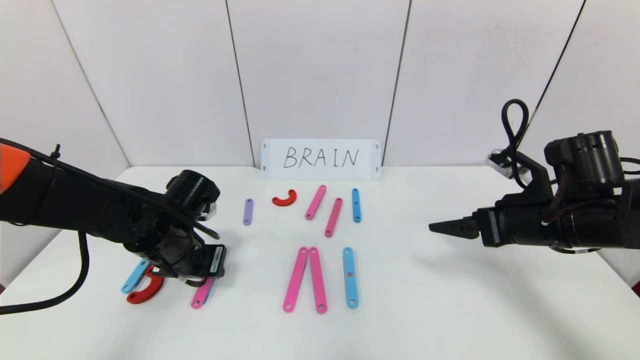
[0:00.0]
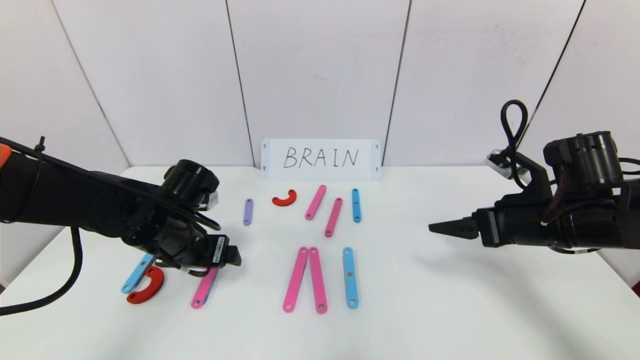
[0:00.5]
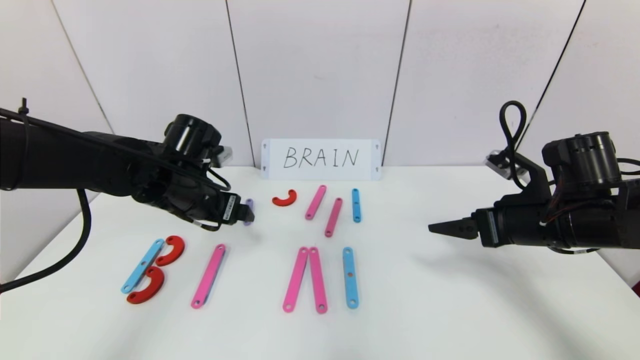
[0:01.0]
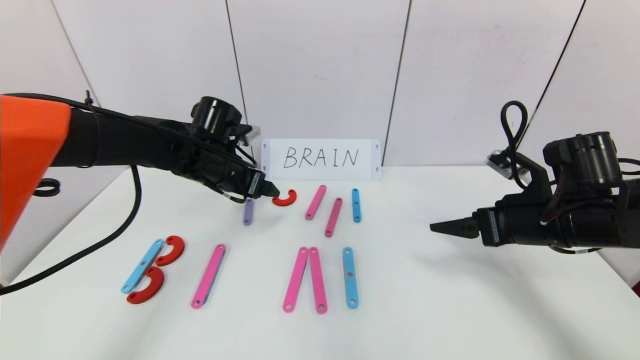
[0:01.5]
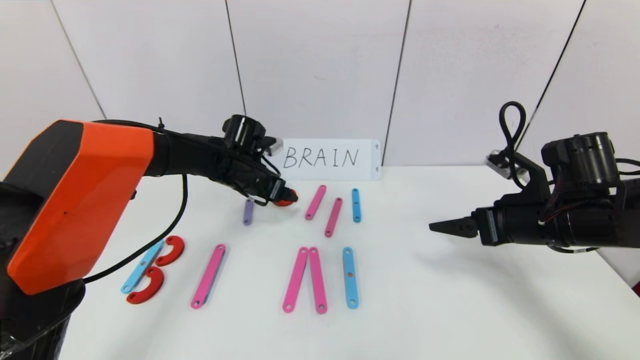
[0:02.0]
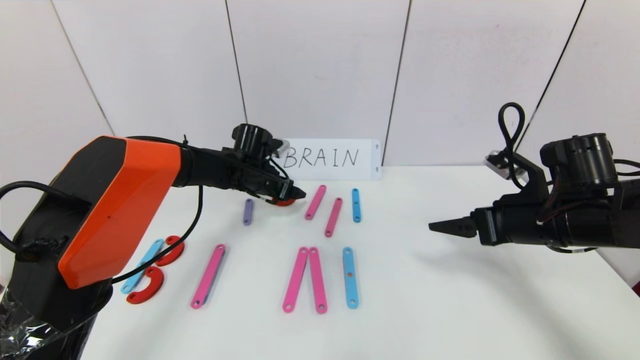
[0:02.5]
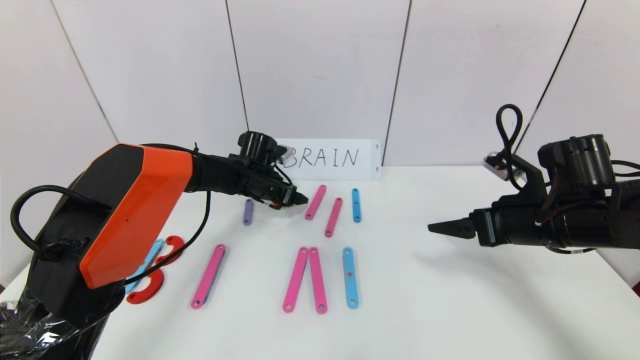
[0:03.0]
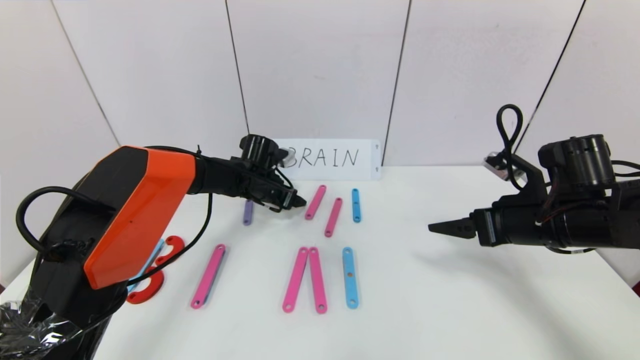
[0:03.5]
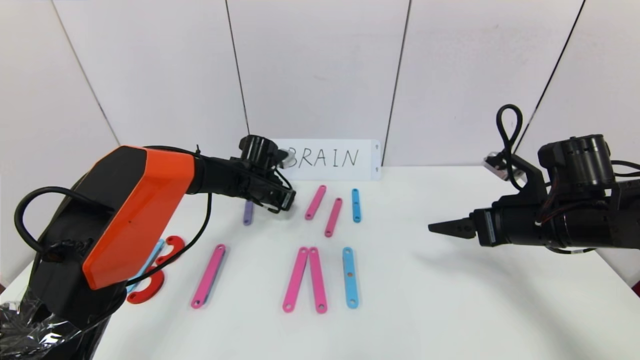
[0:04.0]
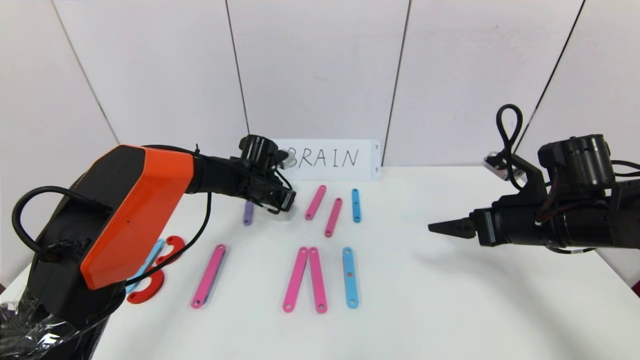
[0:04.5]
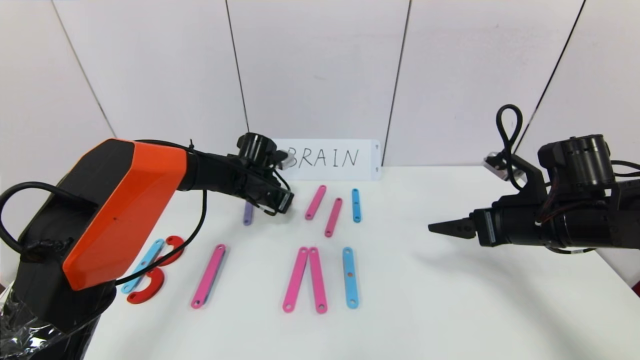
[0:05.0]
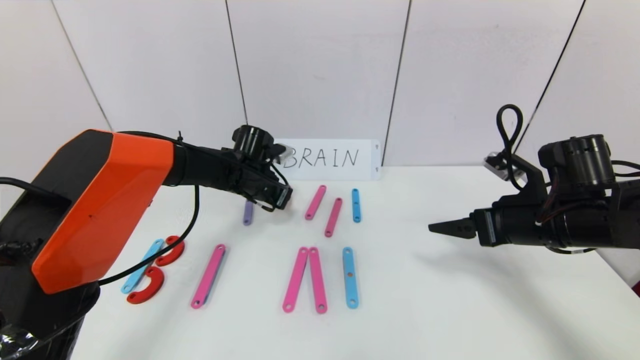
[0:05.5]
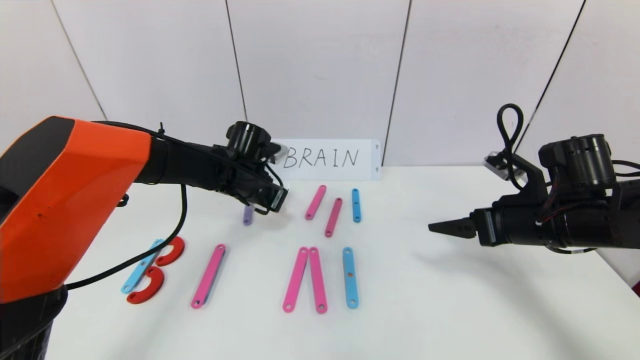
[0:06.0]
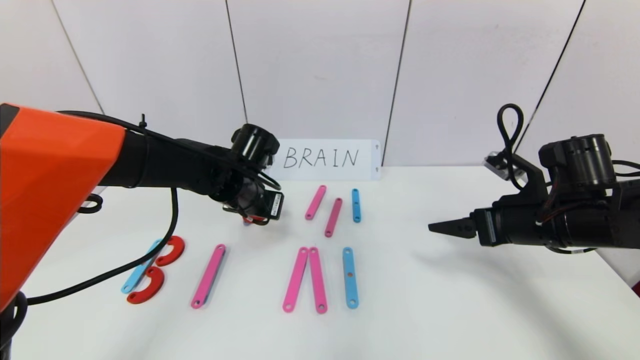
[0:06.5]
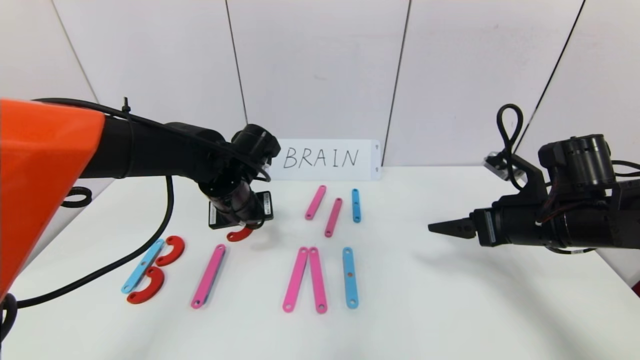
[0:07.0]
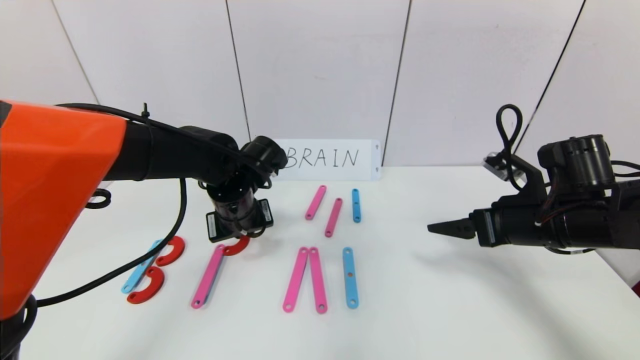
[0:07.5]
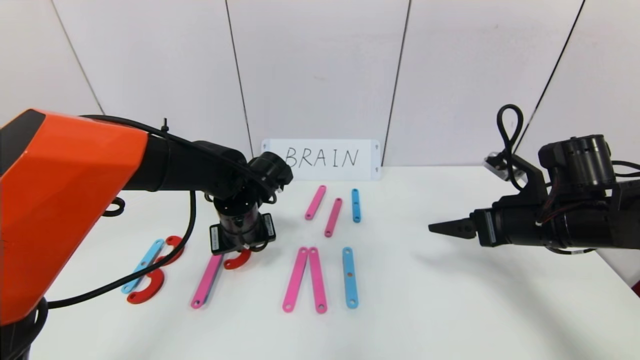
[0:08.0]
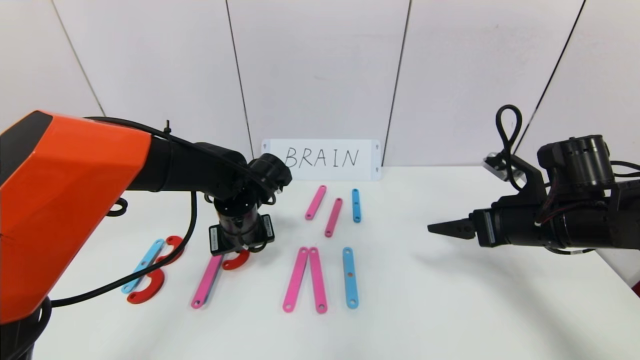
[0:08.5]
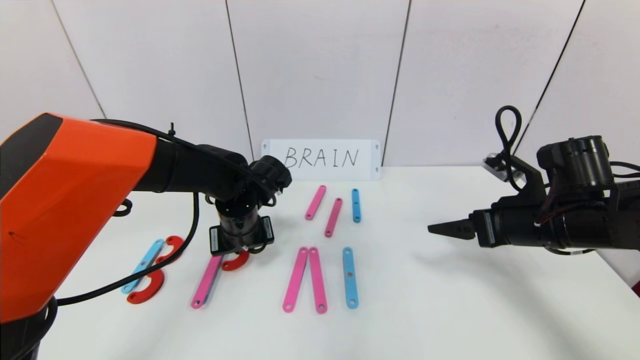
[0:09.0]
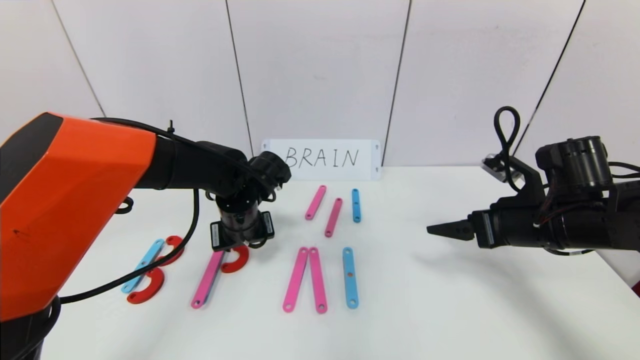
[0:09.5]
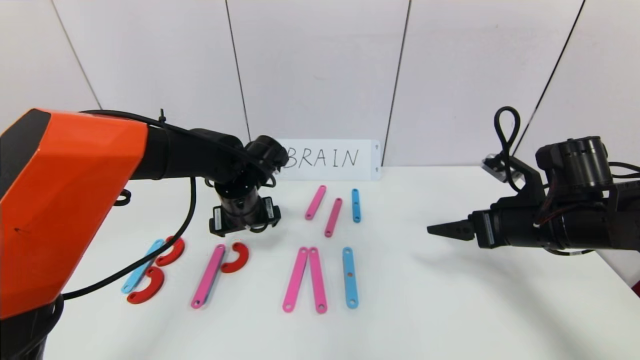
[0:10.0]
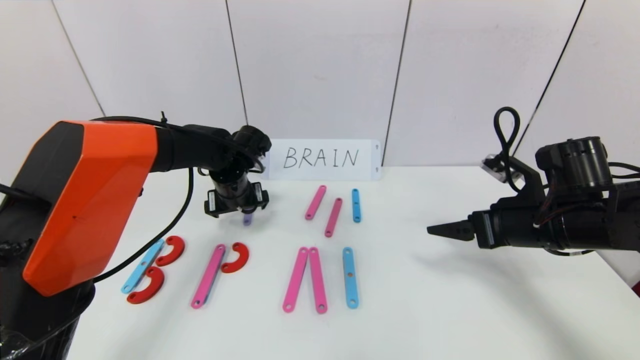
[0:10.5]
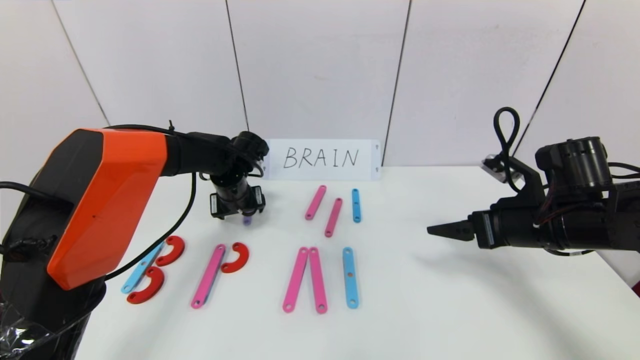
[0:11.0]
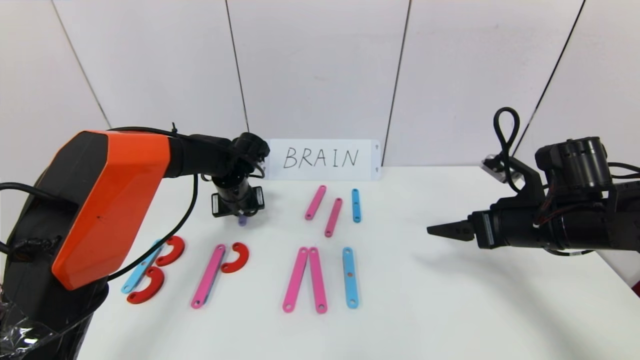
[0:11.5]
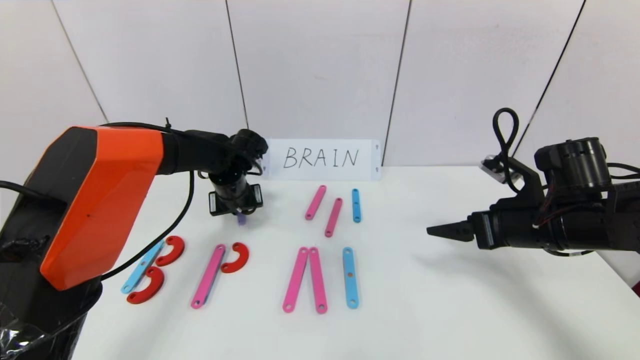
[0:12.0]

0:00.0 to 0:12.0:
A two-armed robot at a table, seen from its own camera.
Task of the whole recording: rearrange the word baai as brain.
0:00.0 to 0:02.0: The left gripper shifts approximately 15 cm forward and to the right, and opens up.
0:02.0 to 0:04.0: The left gripper shifts approximately 5 cm downward, and closes up.
0:04.0 to 0:06.0: The left gripper shifts about 10 cm backward and upward.
0:06.0 to 0:08.0: The left gripper is displaced backward by approximately 5 cm.
0:08.0 to 0:10.0: The left gripper opens.
0:10.0 to 0:12.0: The left gripper travels forward by approximately 5 cm, and closes up.

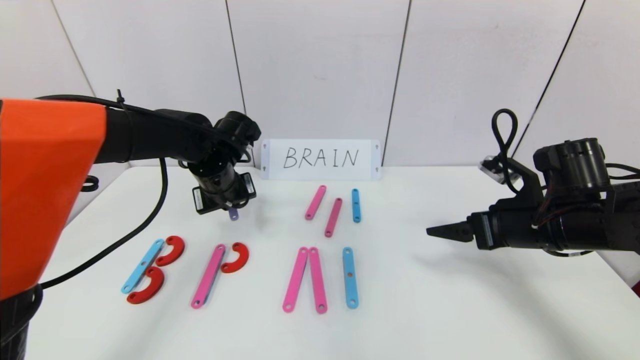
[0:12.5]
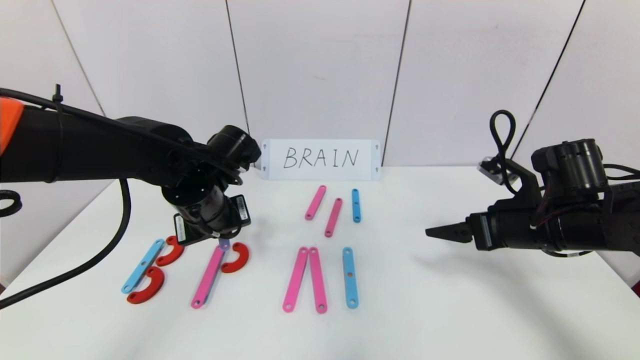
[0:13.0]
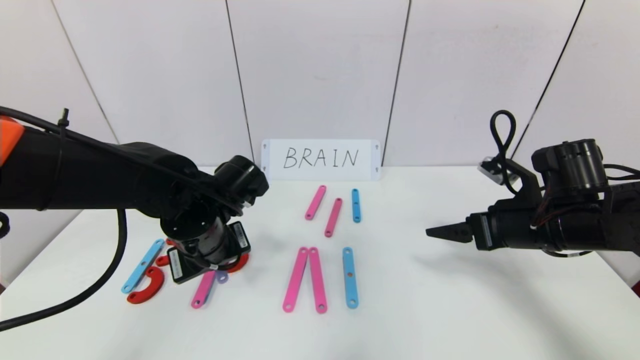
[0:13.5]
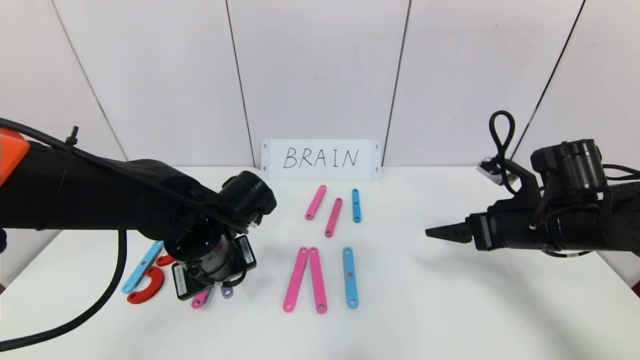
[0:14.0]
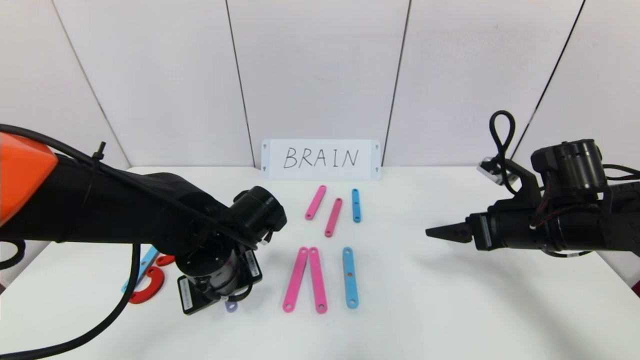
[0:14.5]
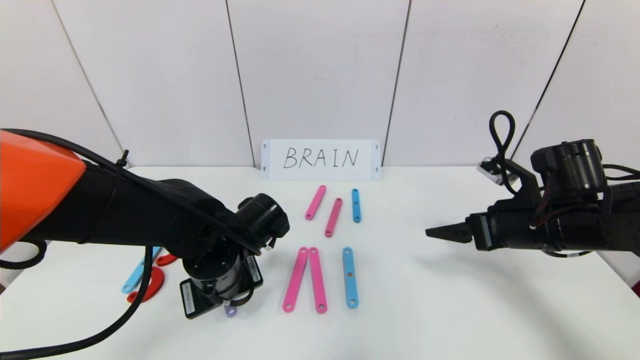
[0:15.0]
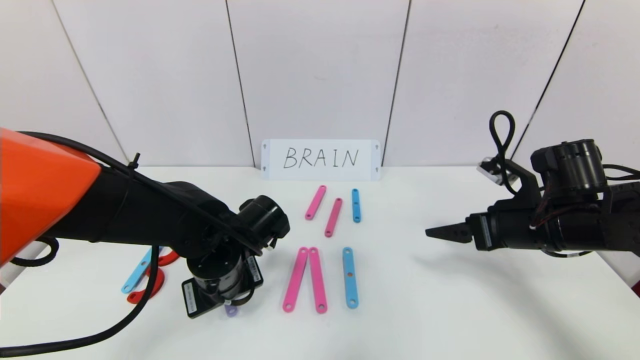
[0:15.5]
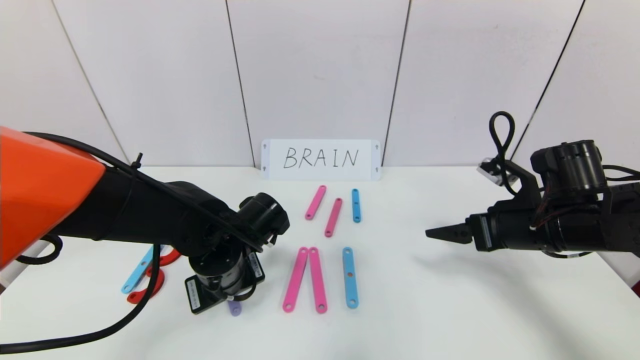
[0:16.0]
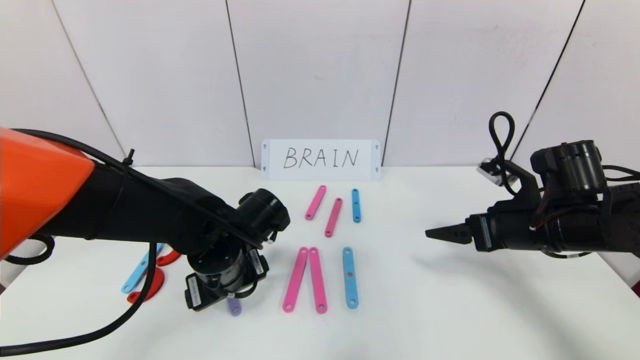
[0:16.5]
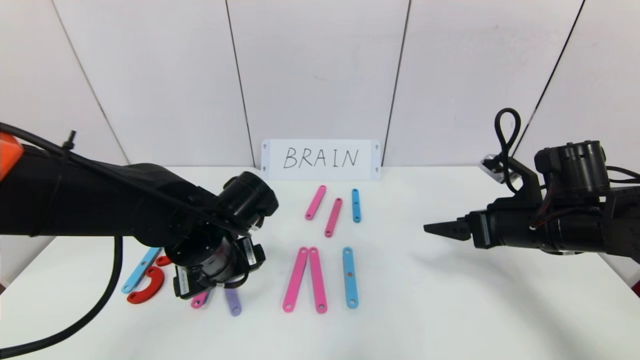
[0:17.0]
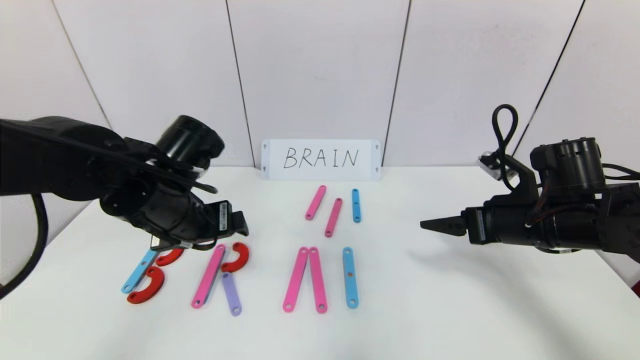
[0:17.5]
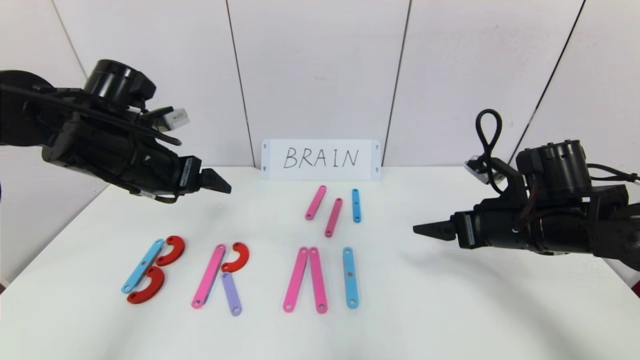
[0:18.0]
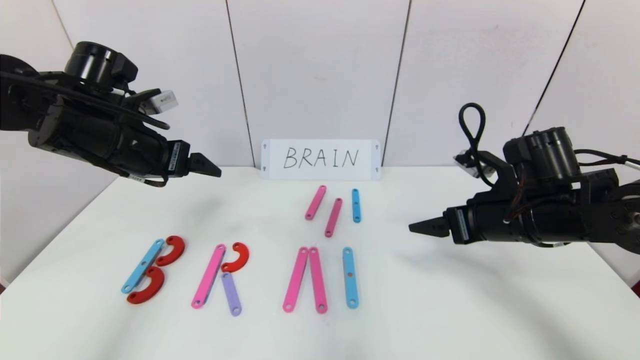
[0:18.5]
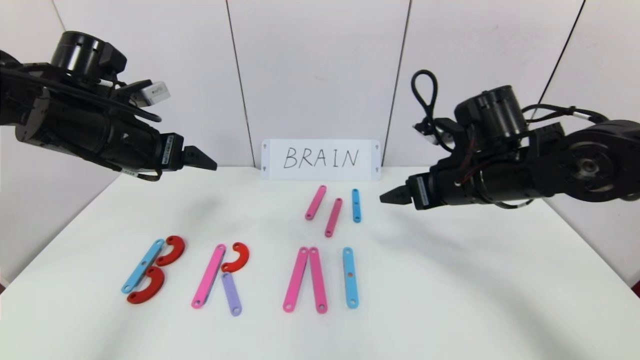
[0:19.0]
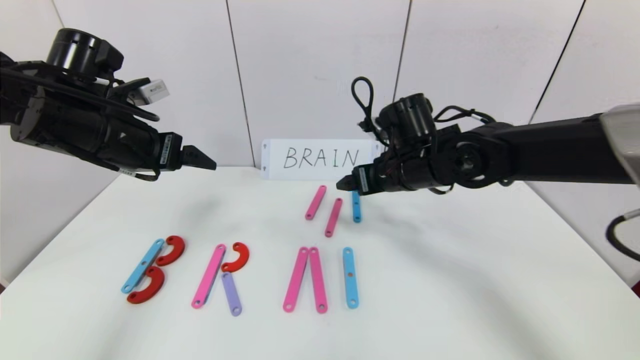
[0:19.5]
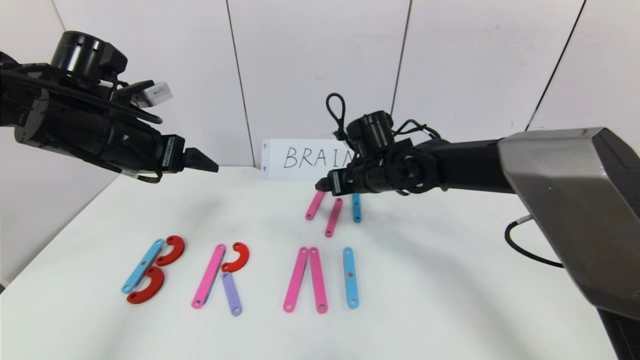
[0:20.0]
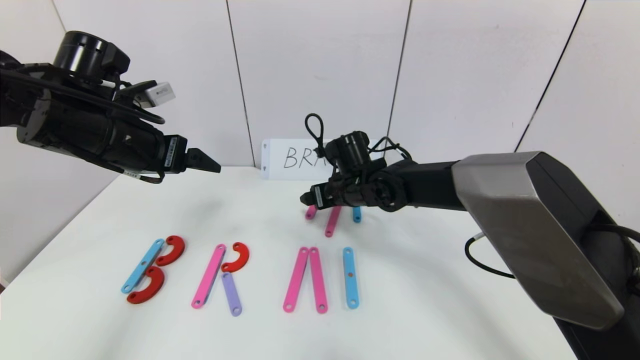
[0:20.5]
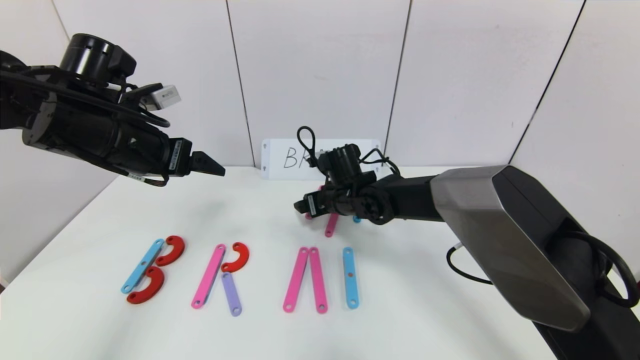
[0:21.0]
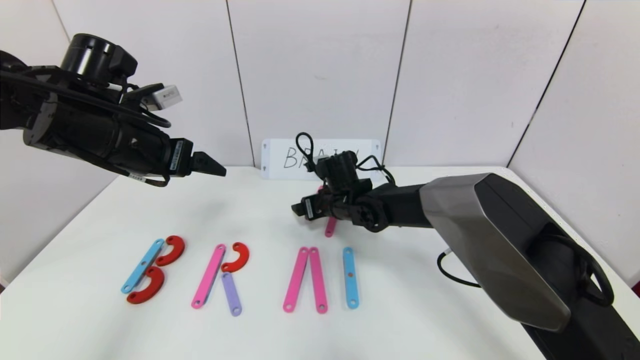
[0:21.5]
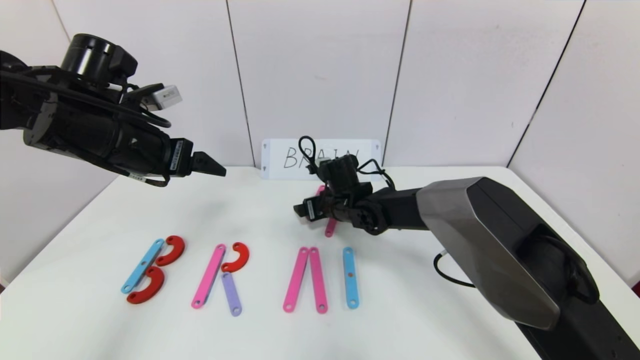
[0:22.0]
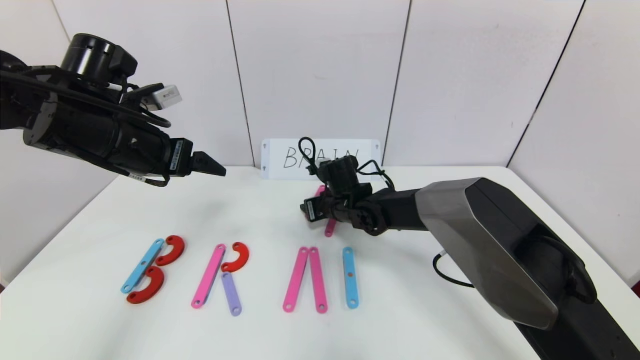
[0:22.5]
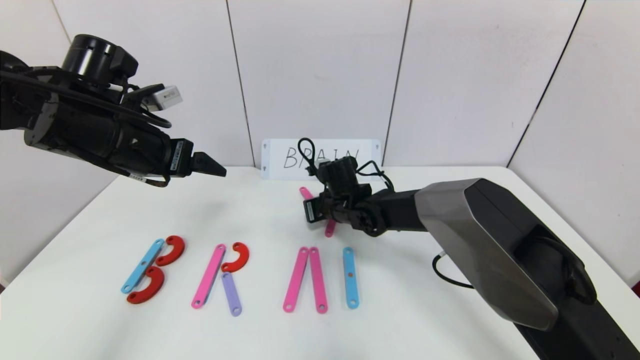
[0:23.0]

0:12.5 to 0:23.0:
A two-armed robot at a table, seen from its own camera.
Task of the whole recording: rearrange the word baai as brain.
Step, 0:12.5 to 0:16.0: Place the character R between first character B and third character A.
0:12.5 to 0:14.5: The left gripper travels backward by about 15 cm.
0:14.5 to 0:16.5: The left gripper opens up.
0:16.5 to 0:19.0: The left gripper heads upward and to the left, covering roughly 20 cm; the right gripper travels to the left and upward by some 10 cm.
0:19.0 to 0:21.0: The right gripper travels to the left, downward and forward by approximately 20 cm.
0:21.0 to 0:23.0: The right gripper closes.
